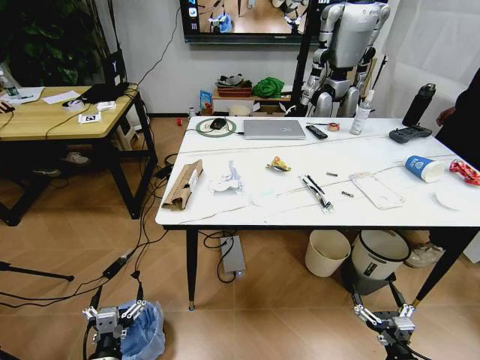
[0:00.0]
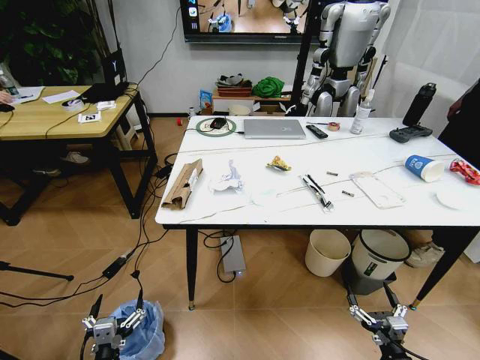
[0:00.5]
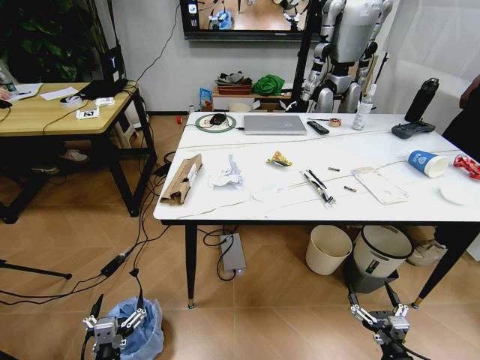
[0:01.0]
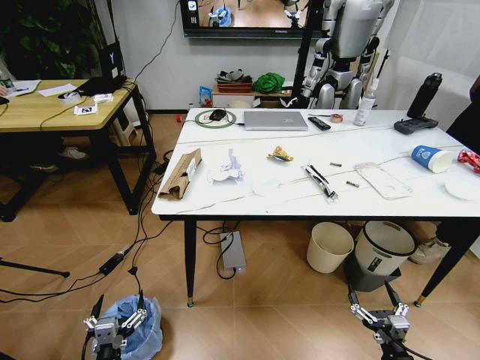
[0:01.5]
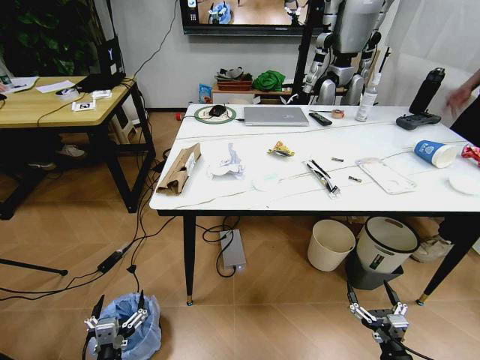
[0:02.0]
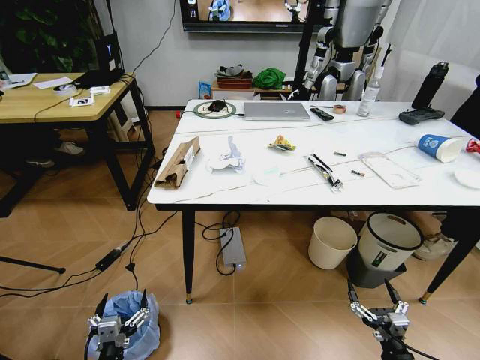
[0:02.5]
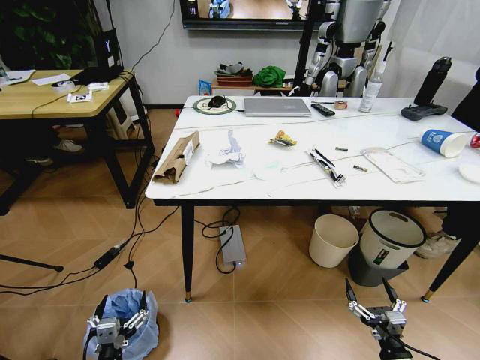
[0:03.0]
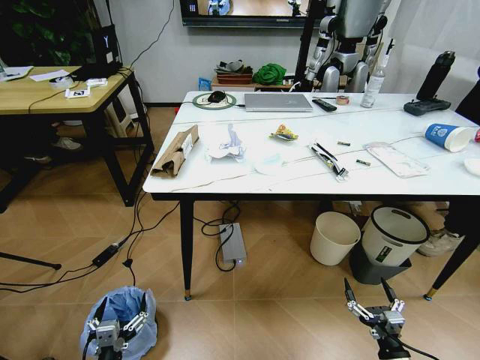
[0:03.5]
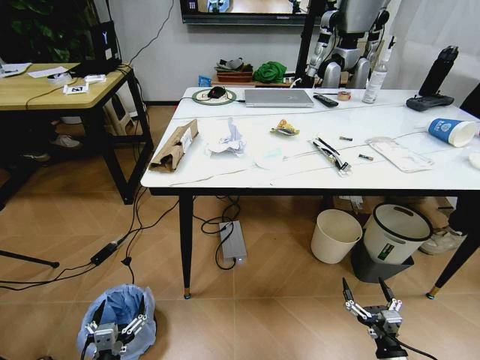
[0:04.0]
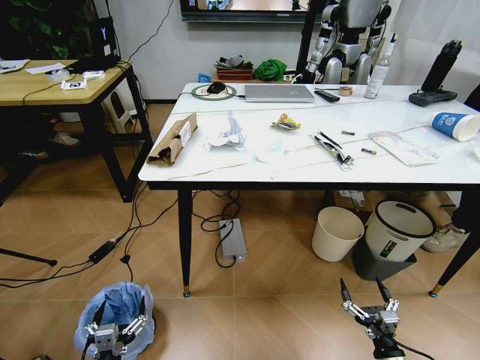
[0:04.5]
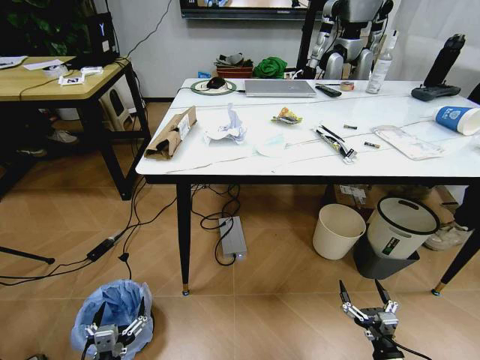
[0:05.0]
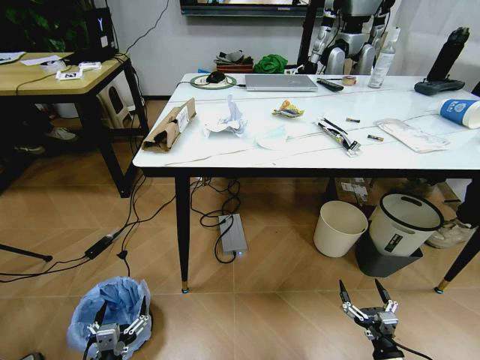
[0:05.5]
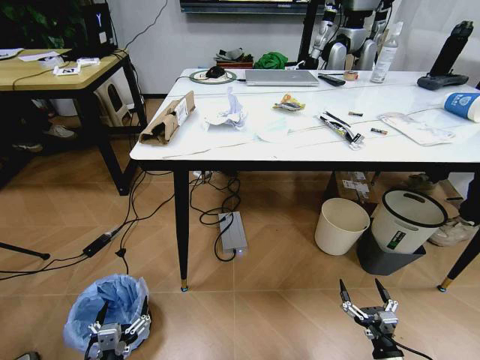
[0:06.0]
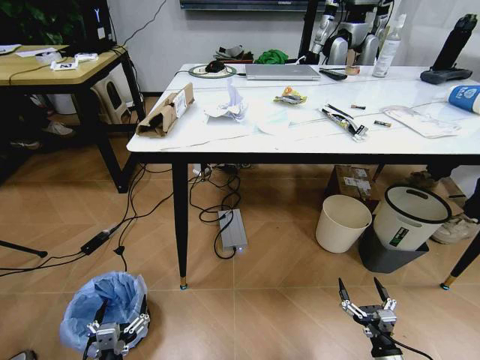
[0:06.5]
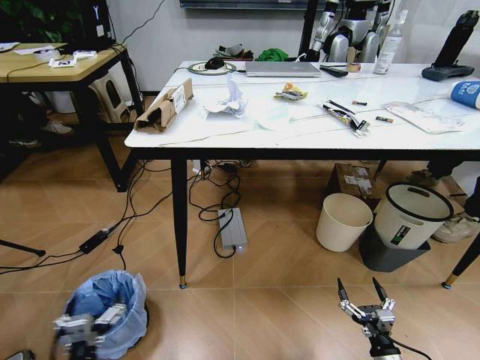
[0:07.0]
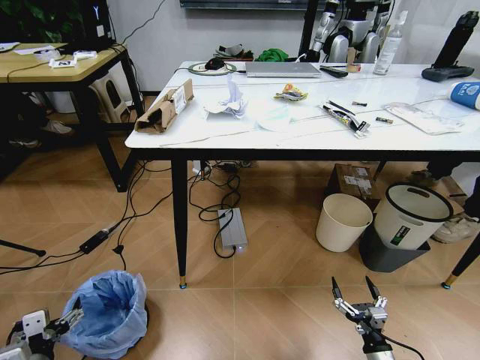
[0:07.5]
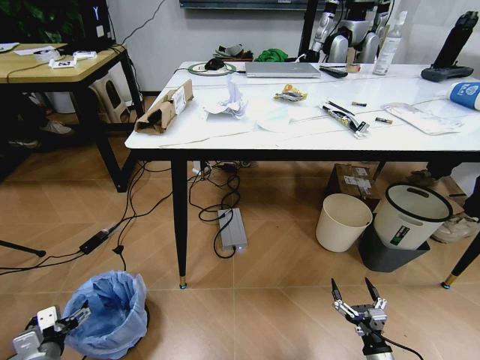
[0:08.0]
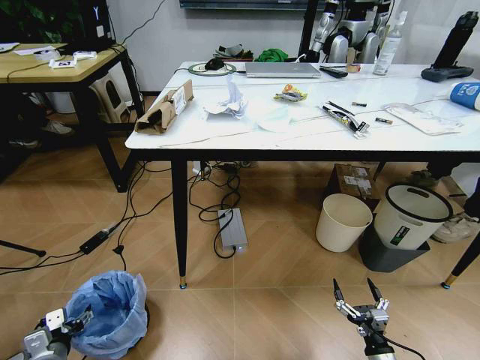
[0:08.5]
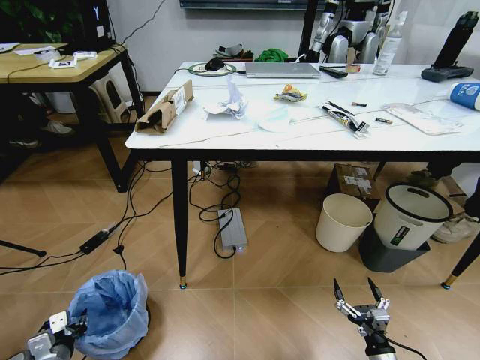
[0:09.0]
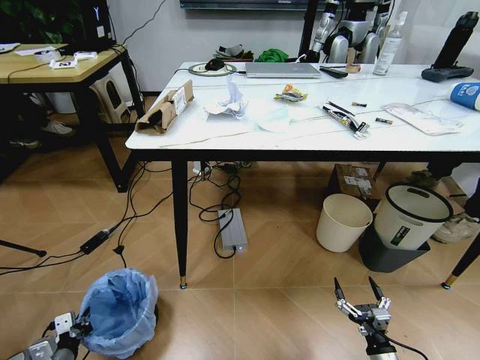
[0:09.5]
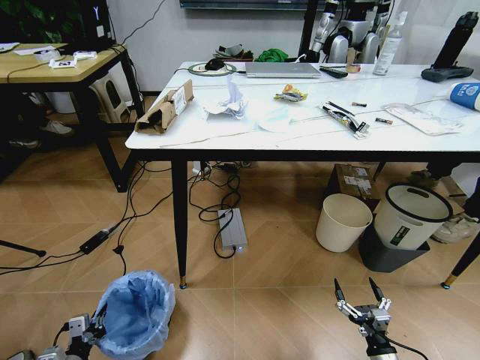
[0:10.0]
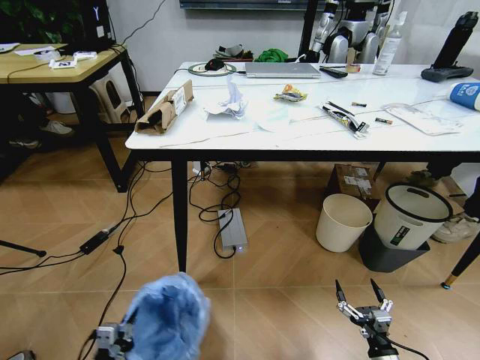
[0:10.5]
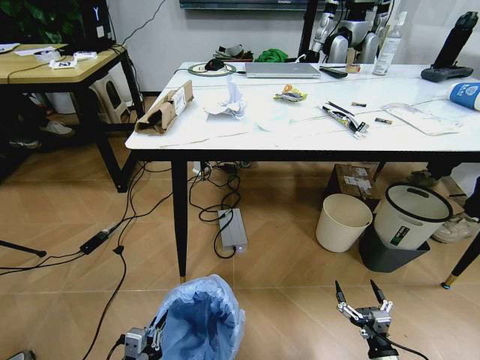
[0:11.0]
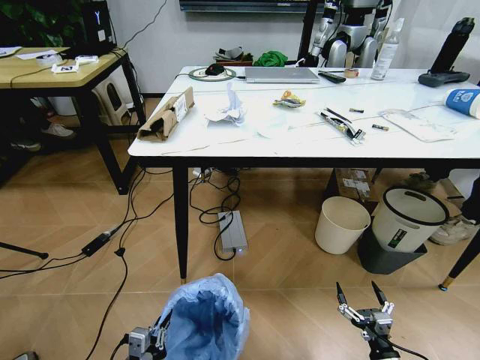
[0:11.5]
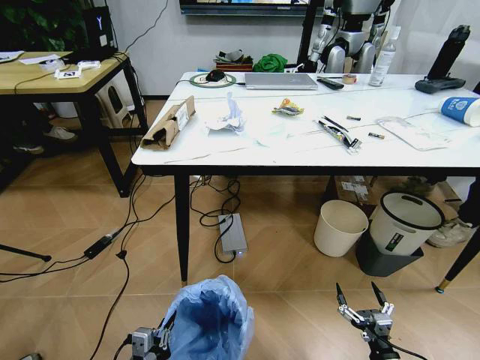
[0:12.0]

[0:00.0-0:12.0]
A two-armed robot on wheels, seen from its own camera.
Task of the whole recording: Pick up the trash bin and place the trash from the table into it.
0:06.0 to 0:08.0: The left gripper shifts approximately 20 cm to the left and forward.
0:08.0 to 0:10.0: The left gripper is displaced downward by about 5 cm, and closes its fingers.
0:10.0 to 0:12.0: The left gripper moves to the right and upward, approximately 20 cm.

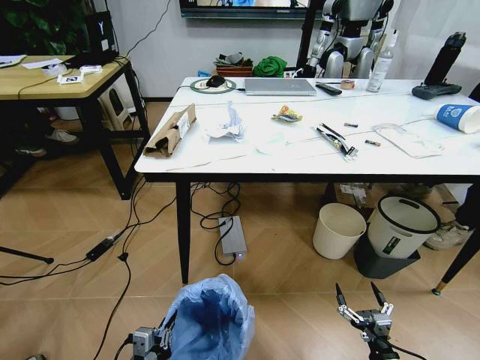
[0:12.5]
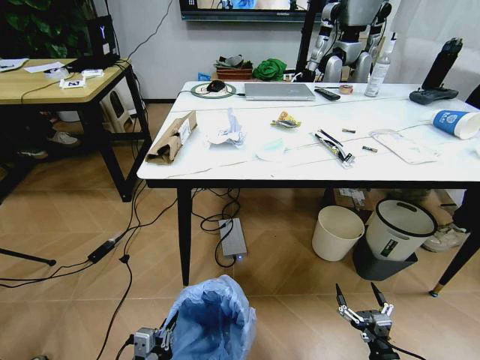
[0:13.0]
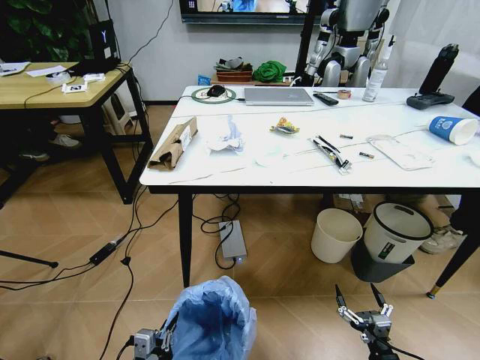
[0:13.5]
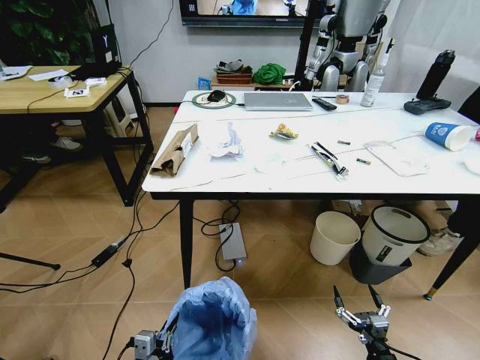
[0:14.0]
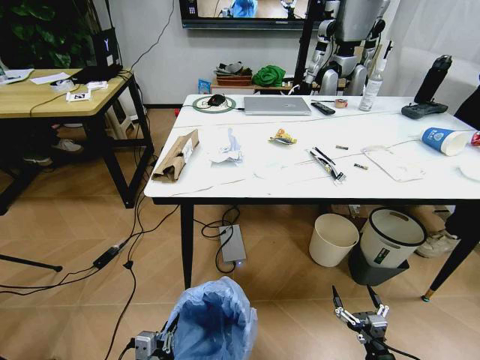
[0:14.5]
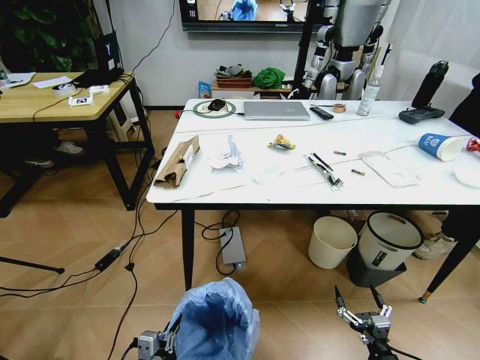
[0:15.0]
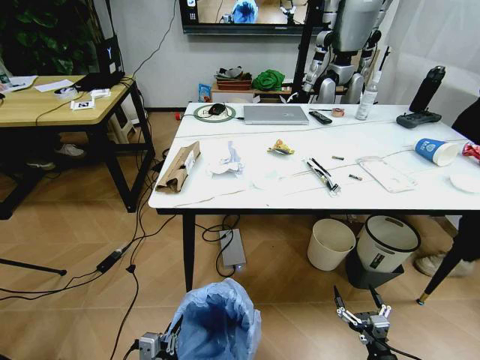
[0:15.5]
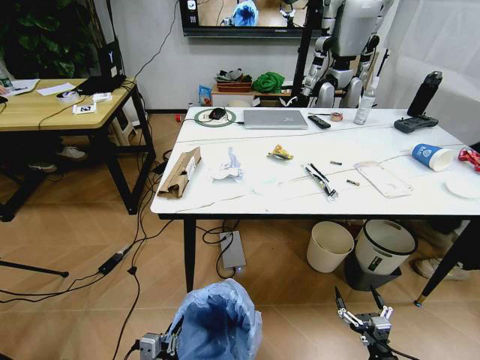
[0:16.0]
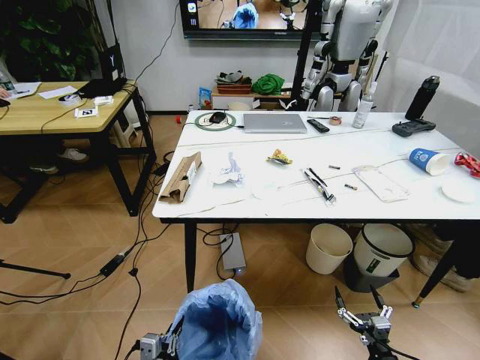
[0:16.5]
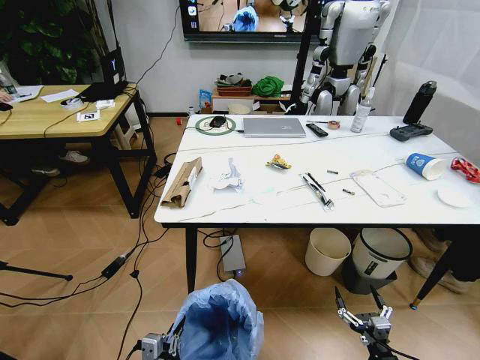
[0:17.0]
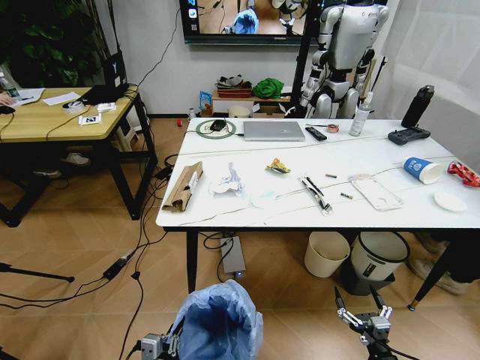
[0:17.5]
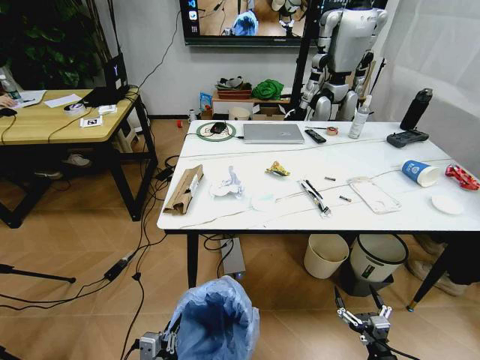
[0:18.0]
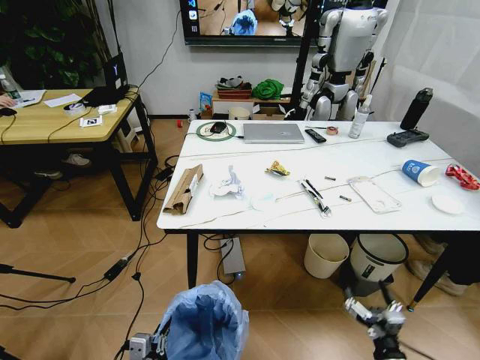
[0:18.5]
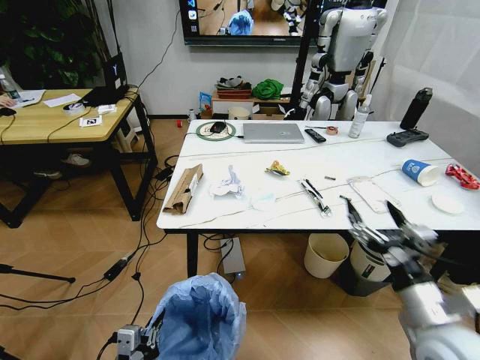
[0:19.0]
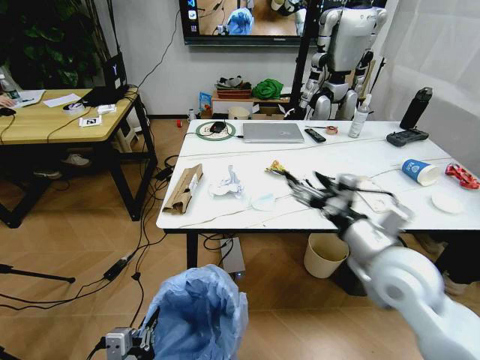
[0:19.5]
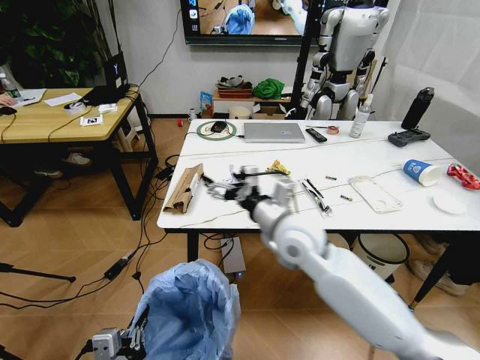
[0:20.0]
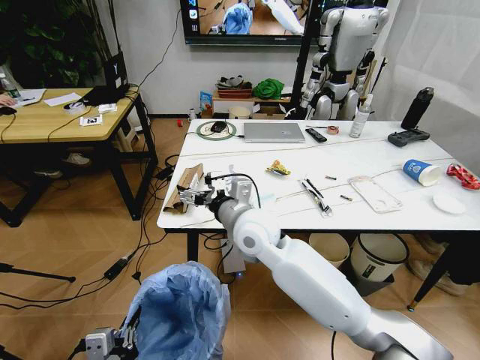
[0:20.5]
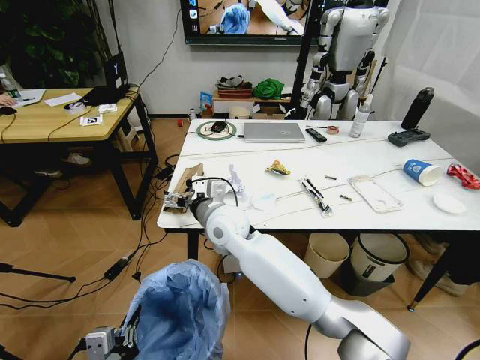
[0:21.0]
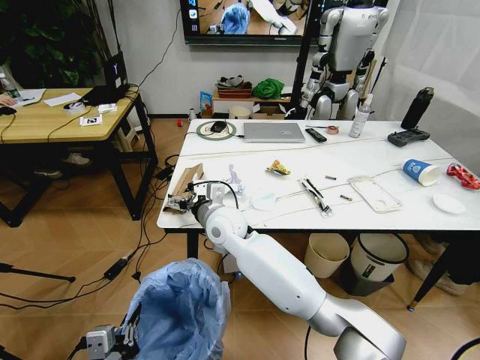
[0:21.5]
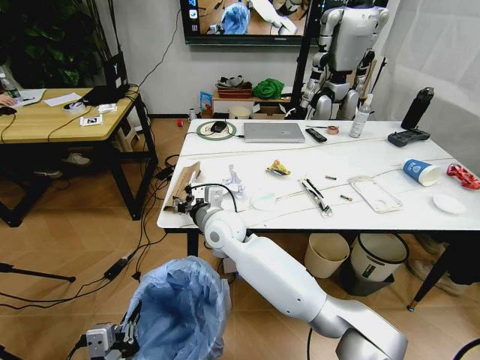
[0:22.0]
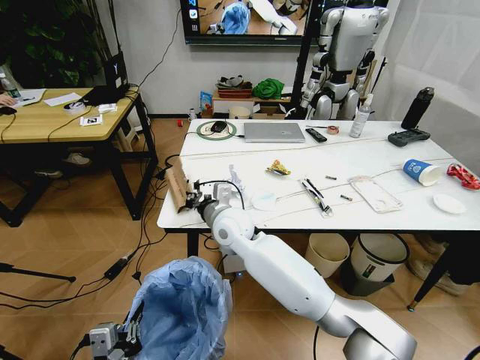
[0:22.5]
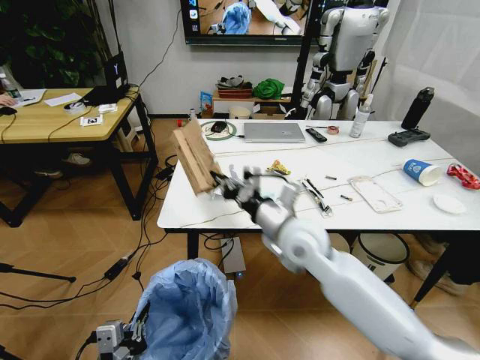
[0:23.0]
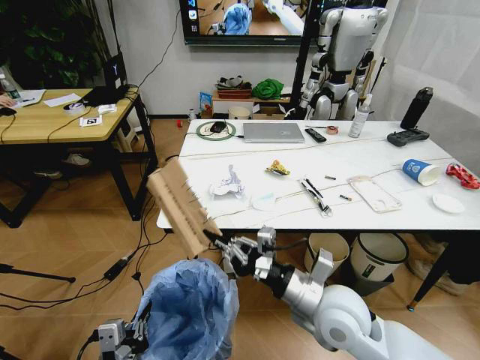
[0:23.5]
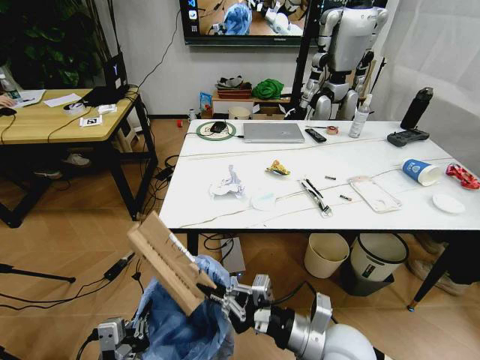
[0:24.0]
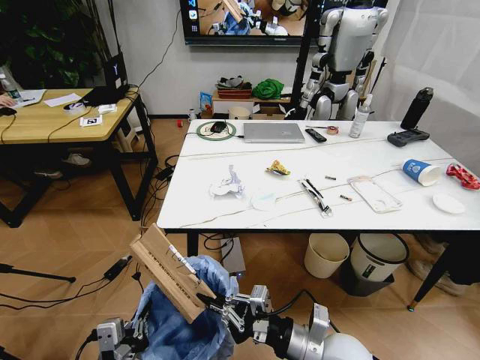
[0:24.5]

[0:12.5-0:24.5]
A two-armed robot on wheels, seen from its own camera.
Task of the whole recording: Pick up the trash bin and place the trash from the table into it.
0:16.5 to 0:18.5: The right gripper moves upward, approximately 5 cm.
0:18.5 to 0:20.5: The left gripper heads upward, covering roughly 10 cm, while the right gripper moves to the left, forward and upward, roughly 50 cm.
0:20.5 to 0:22.5: The right gripper changes place by roughly 10 cm, and closes up.
0:22.5 to 0:24.5: The right gripper shifts roughly 30 cm backward and to the right.

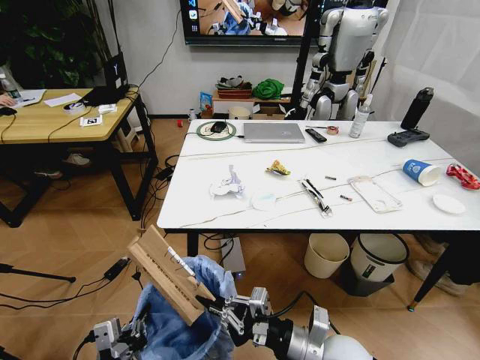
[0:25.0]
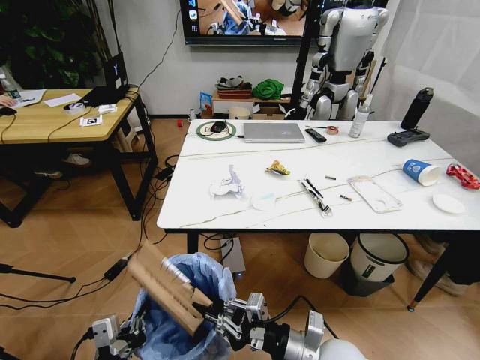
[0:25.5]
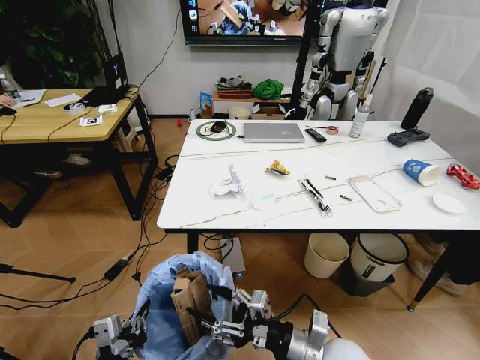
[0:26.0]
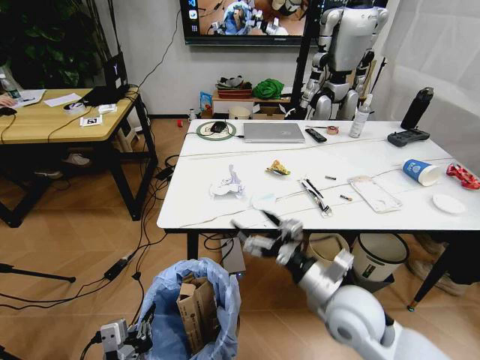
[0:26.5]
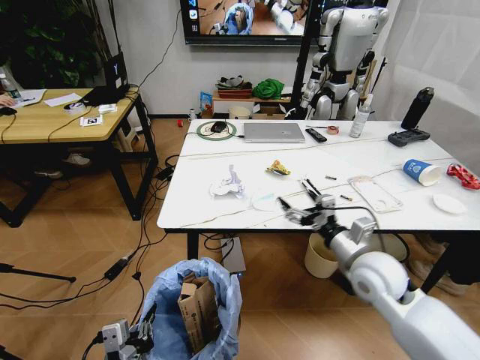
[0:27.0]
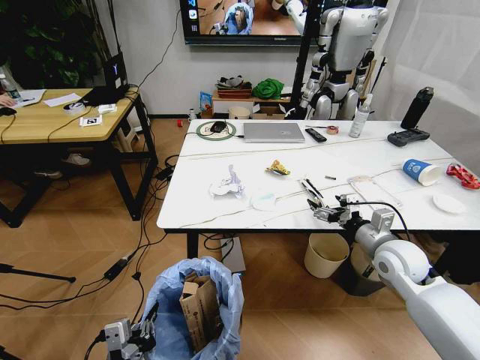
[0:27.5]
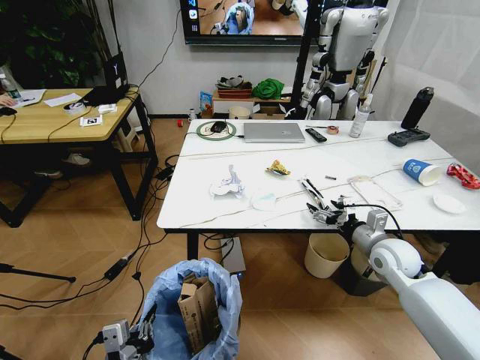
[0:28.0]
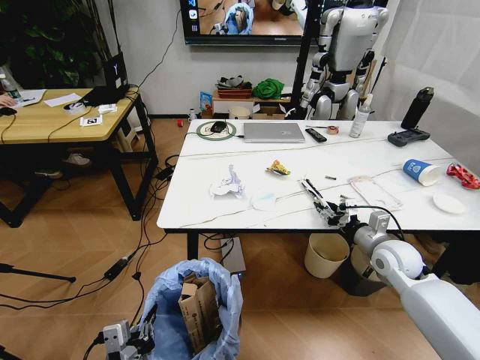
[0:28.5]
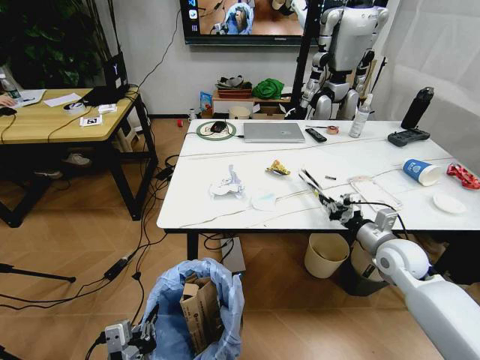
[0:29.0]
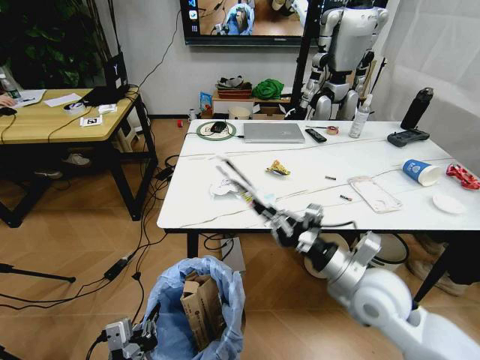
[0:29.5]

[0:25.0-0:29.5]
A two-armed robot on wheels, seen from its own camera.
Task of the whole recording: Pick up the trash bin and place the trash from the table into it.
0:25.0 to 0:27.0: The right gripper goes about 15 cm forward and to the right, and opens.
0:27.0 to 0:29.5: The right gripper goes to the right and returns, approximately 10 cm each way, and closes.
